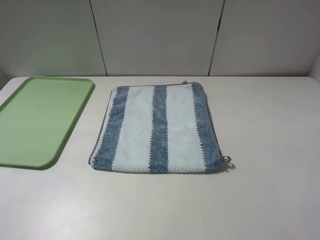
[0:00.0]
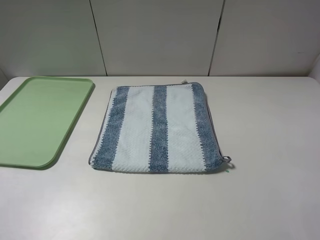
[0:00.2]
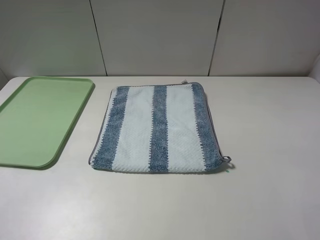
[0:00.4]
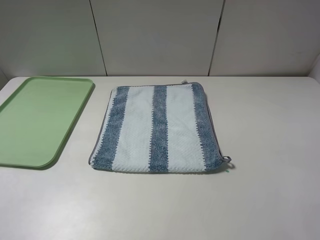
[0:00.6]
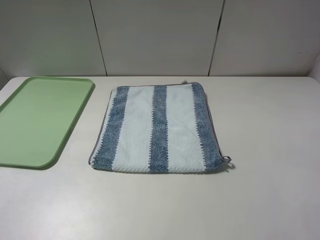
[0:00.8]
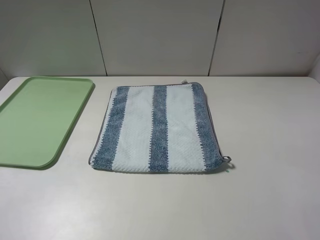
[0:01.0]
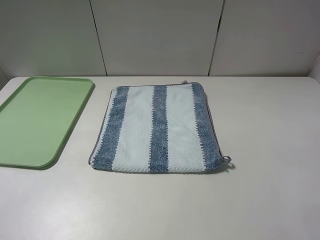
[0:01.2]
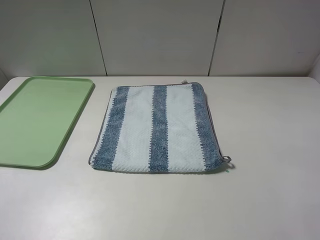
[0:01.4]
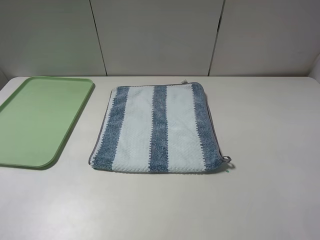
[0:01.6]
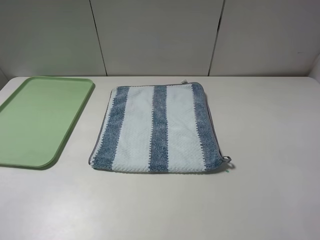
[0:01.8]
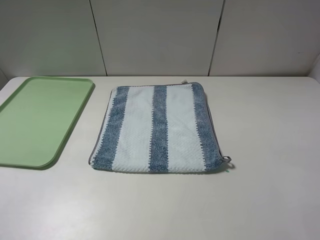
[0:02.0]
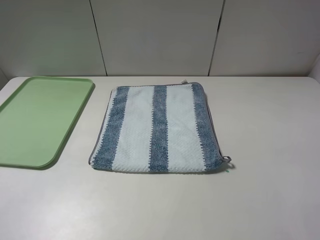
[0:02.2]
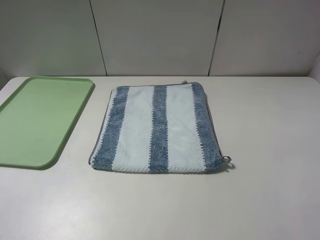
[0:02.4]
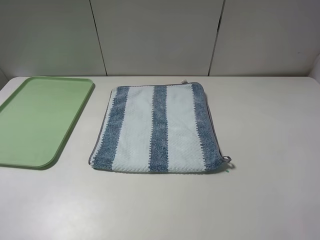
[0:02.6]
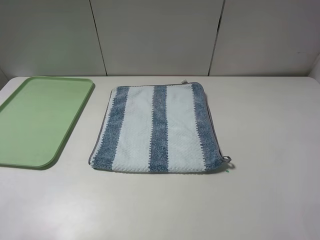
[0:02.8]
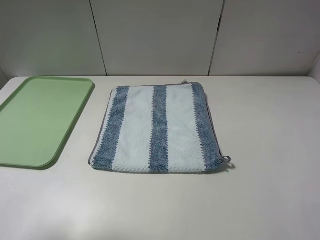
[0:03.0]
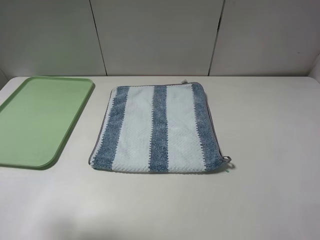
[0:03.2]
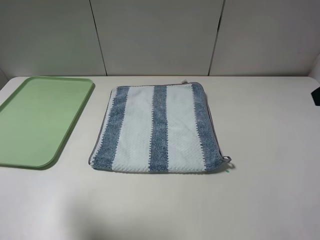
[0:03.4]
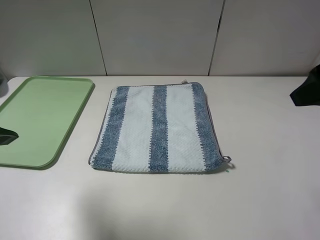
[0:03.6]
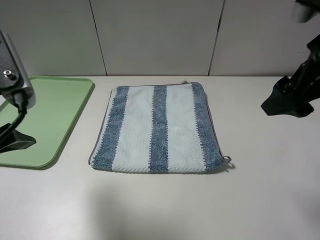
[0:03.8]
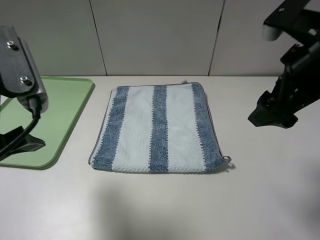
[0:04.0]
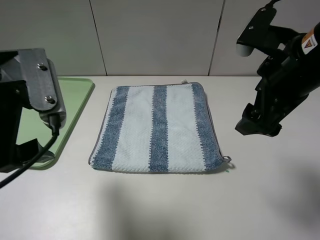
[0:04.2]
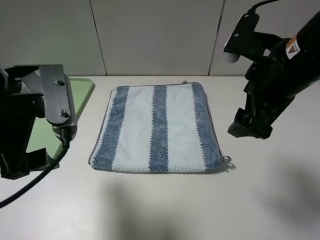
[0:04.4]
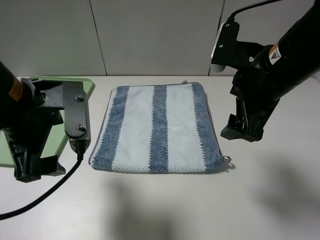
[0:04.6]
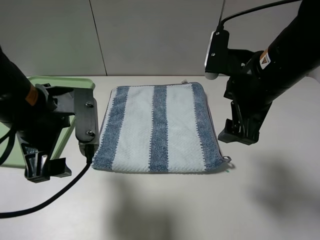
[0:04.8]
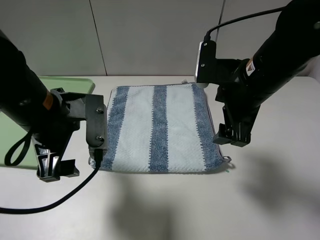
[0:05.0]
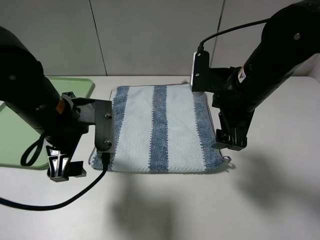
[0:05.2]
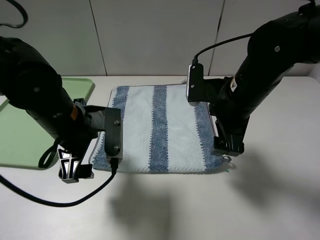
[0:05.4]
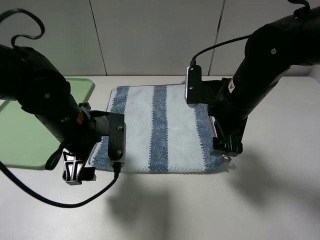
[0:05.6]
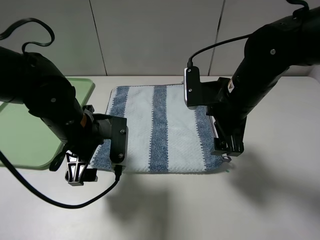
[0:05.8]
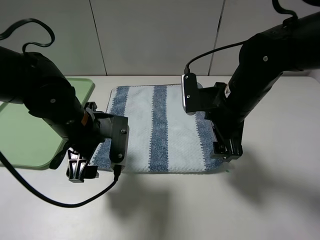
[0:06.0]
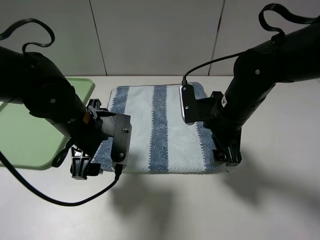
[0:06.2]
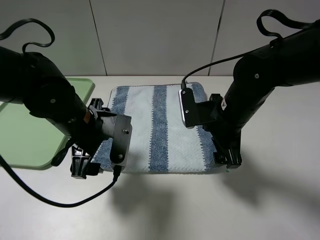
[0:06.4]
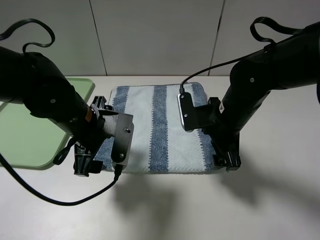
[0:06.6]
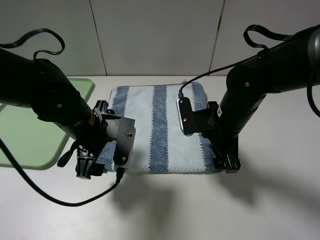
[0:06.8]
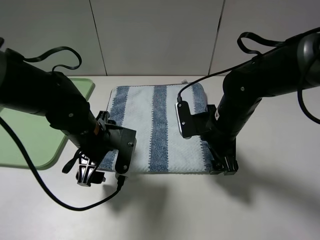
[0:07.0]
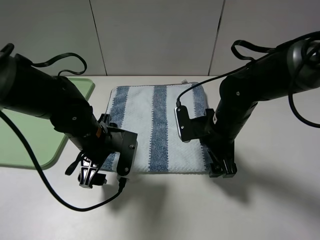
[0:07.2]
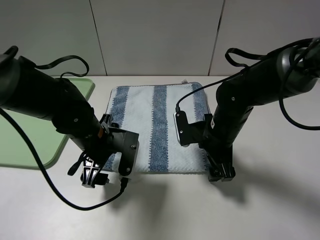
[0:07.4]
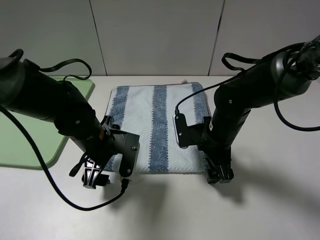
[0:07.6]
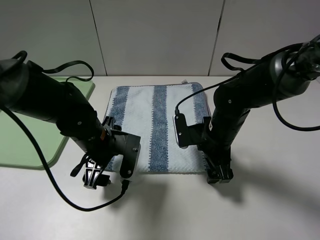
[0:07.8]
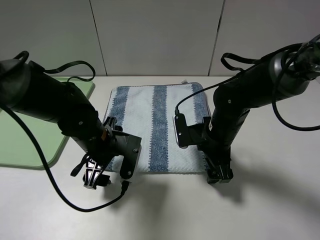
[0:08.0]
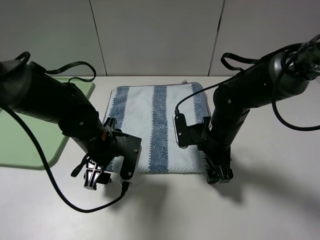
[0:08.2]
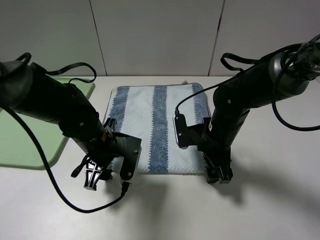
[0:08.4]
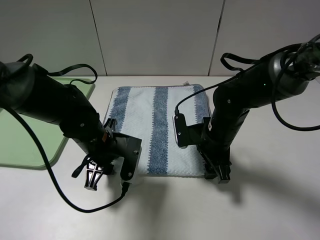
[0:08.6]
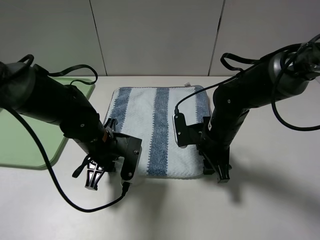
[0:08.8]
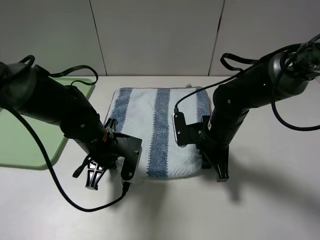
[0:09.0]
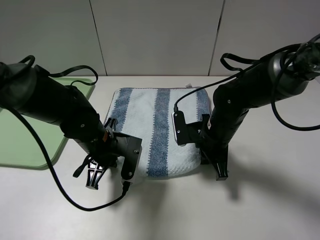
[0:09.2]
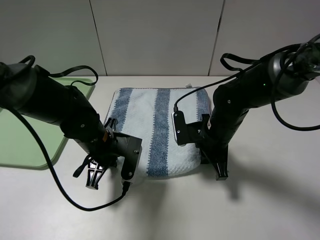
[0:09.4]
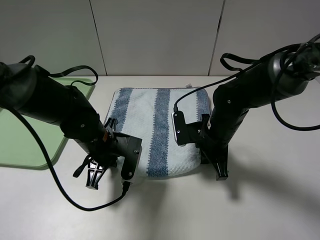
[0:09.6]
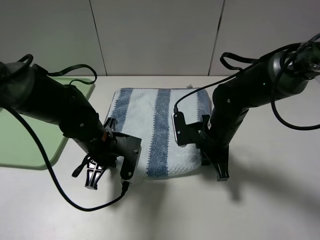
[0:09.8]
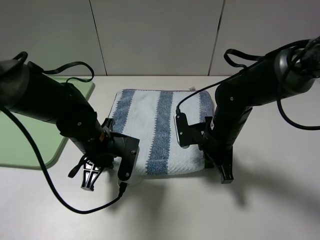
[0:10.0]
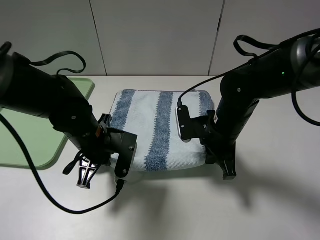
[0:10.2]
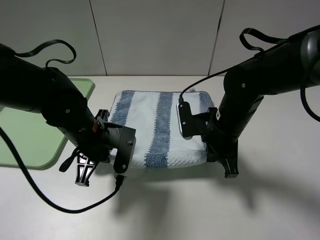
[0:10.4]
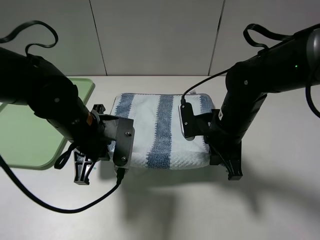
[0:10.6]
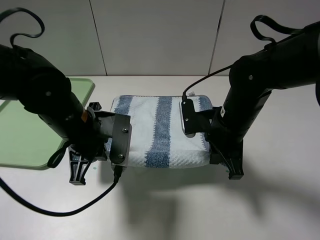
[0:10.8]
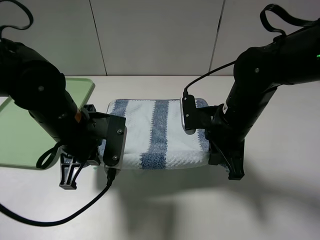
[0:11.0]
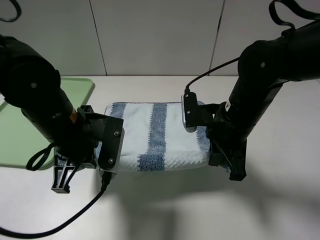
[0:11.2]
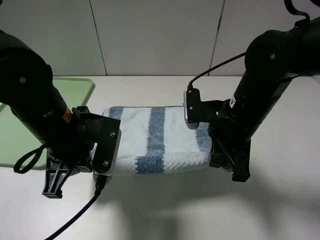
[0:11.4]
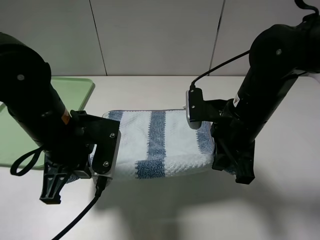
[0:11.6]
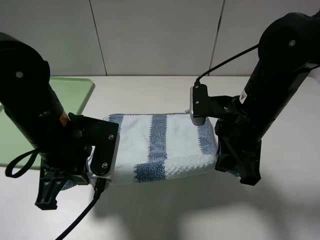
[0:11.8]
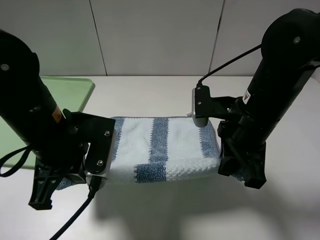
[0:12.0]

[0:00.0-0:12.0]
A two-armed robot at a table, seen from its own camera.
Step, 0:00.0 to 0:09.6: Grasp the blue white towel with the left gripper.
0:00.0 to 0:01.6: Neither gripper changes place.
0:01.6 to 0:03.0: The left gripper travels forward and upward by roughly 10 cm.
0:03.0 to 0:04.4: The left gripper heads to the right, downward and forward, covering approximately 15 cm. Meanwhile the right gripper moves to the left, forward and downward, roughly 20 cm.
0:04.4 to 0:06.0: The left gripper goes some 15 cm downward, forward and to the right, while the right gripper goes approximately 10 cm downward.
0:06.0 to 0:07.6: The left gripper heads downward, covering some 5 cm, while the right gripper is displaced downward by roughly 10 cm.
0:07.6 to 0:09.0: The right gripper closes its fingers, while the left gripper closes up.
0:10.4 to 0:12.0: The right gripper travels upward by about 5 cm, while the left gripper moves upward and backward, roughly 10 cm.

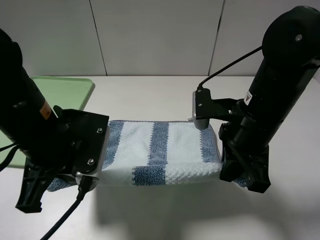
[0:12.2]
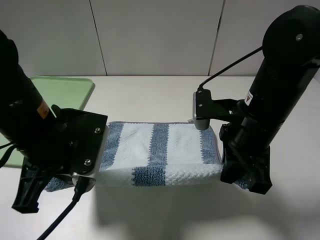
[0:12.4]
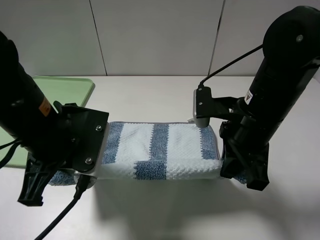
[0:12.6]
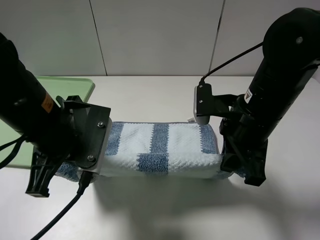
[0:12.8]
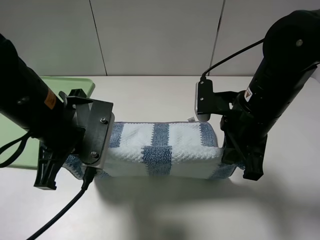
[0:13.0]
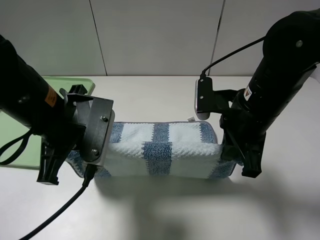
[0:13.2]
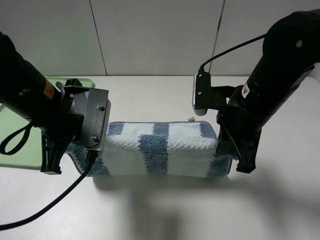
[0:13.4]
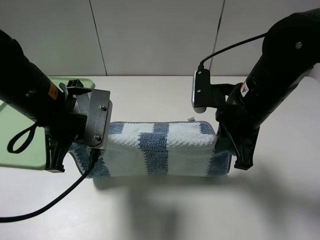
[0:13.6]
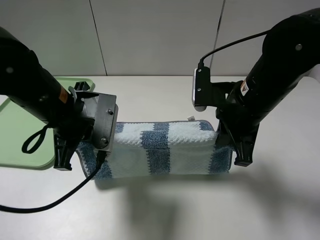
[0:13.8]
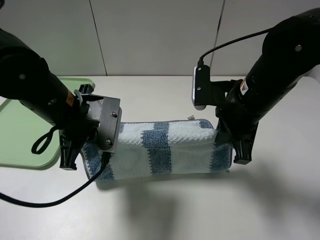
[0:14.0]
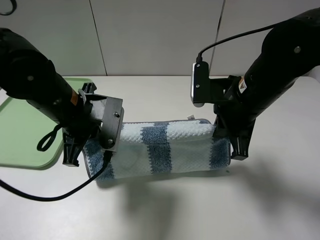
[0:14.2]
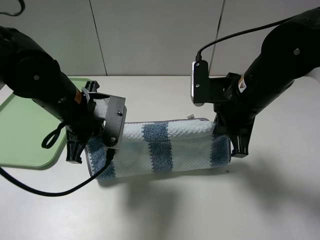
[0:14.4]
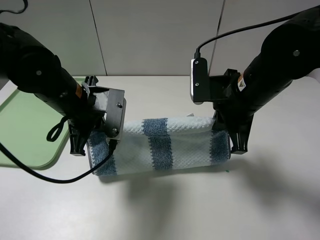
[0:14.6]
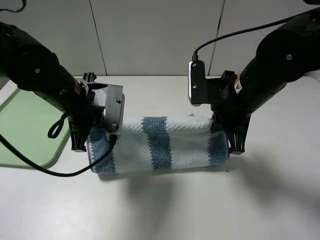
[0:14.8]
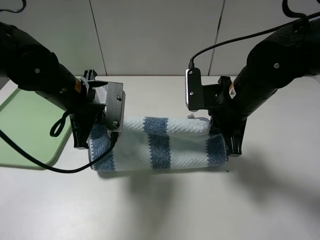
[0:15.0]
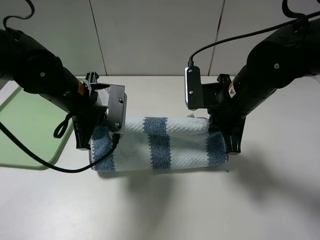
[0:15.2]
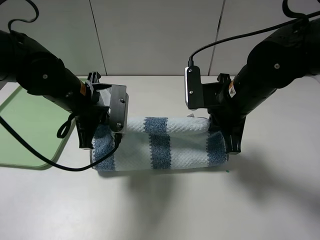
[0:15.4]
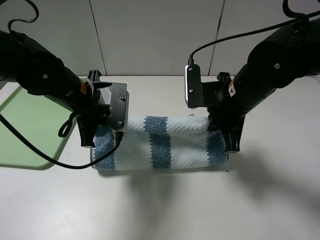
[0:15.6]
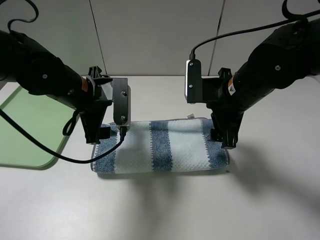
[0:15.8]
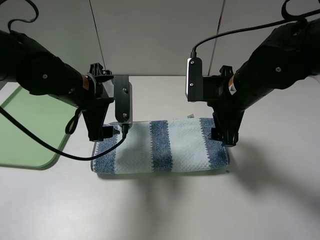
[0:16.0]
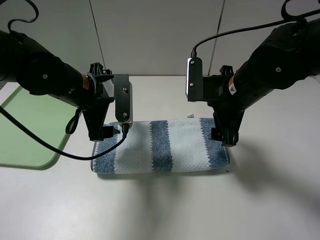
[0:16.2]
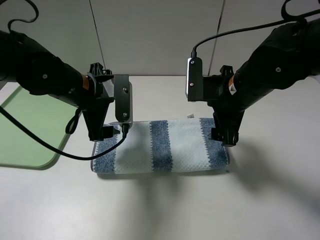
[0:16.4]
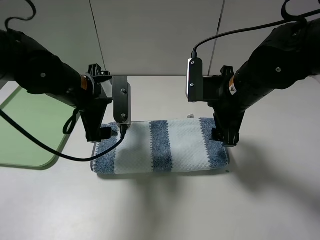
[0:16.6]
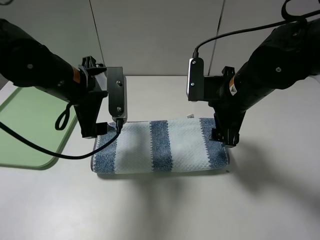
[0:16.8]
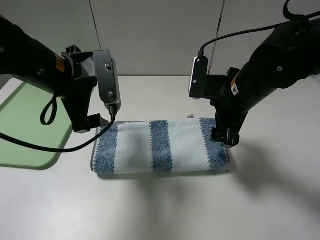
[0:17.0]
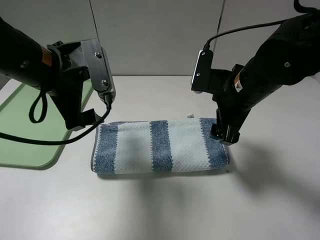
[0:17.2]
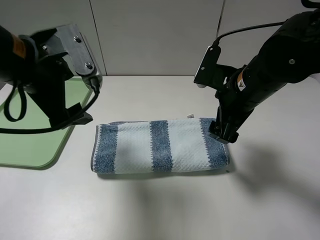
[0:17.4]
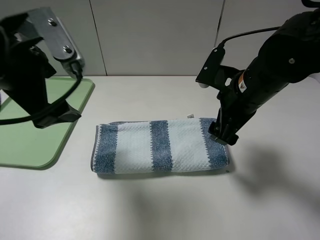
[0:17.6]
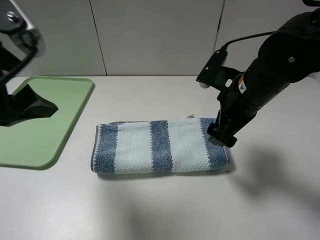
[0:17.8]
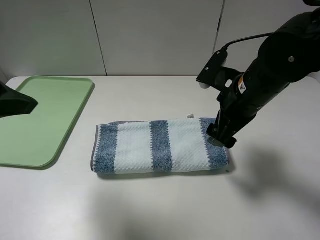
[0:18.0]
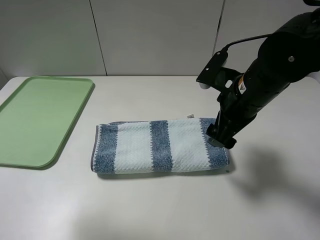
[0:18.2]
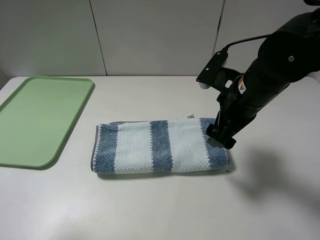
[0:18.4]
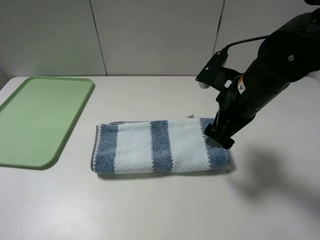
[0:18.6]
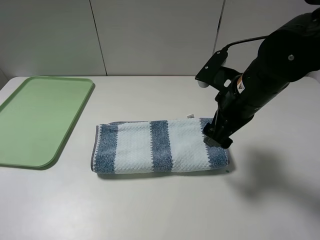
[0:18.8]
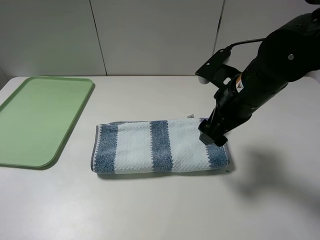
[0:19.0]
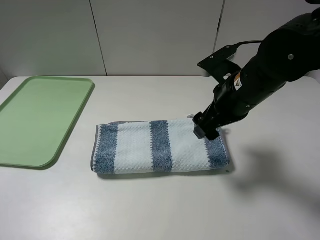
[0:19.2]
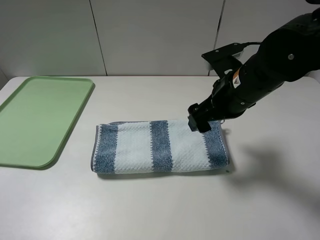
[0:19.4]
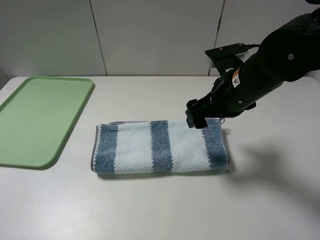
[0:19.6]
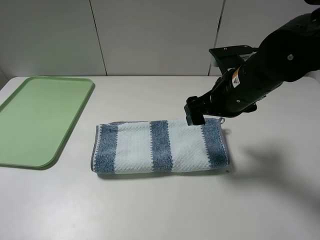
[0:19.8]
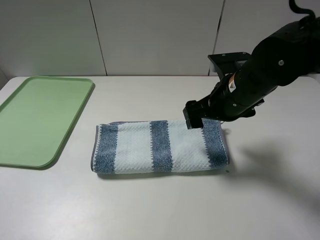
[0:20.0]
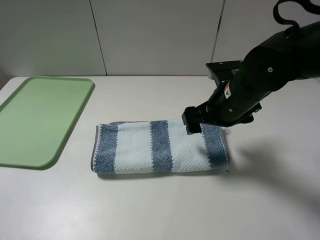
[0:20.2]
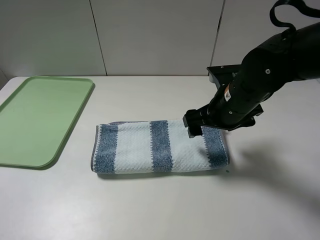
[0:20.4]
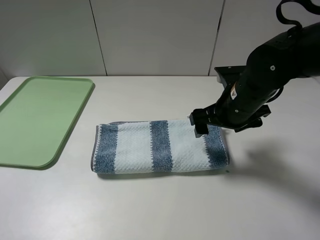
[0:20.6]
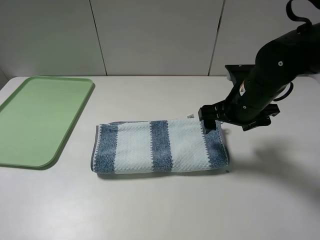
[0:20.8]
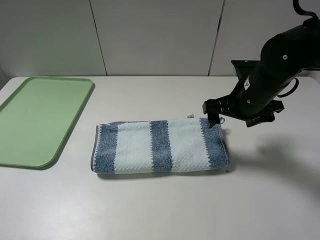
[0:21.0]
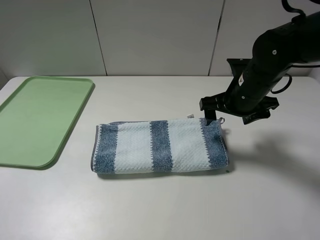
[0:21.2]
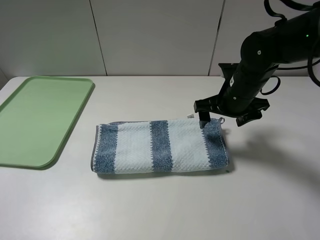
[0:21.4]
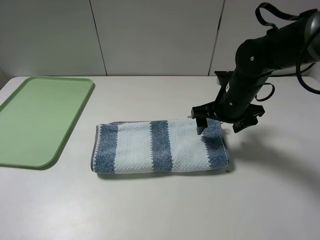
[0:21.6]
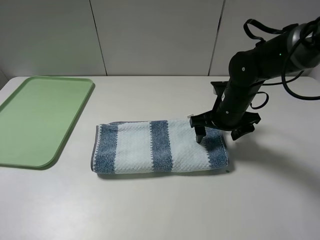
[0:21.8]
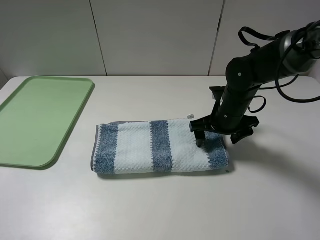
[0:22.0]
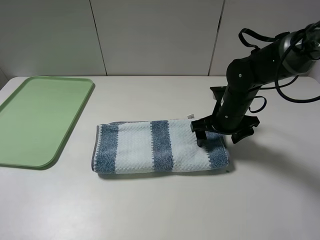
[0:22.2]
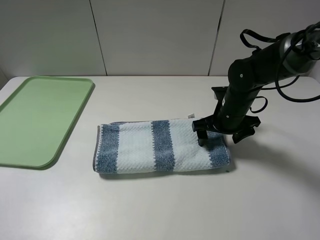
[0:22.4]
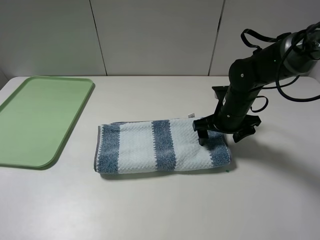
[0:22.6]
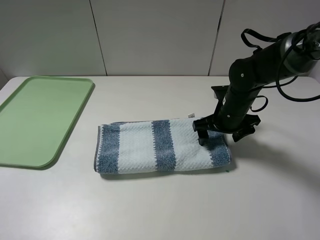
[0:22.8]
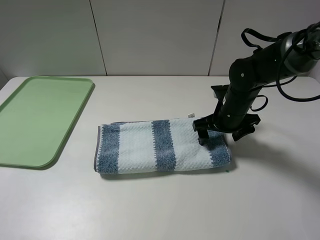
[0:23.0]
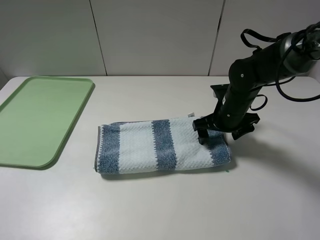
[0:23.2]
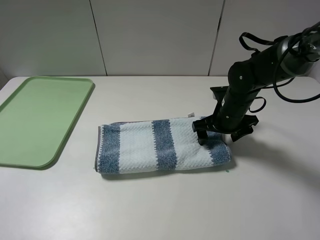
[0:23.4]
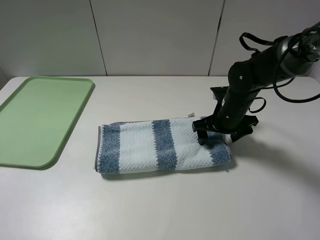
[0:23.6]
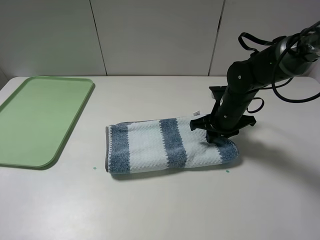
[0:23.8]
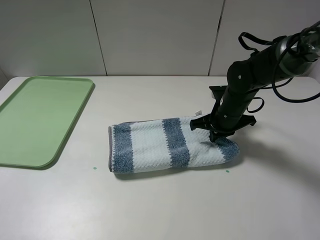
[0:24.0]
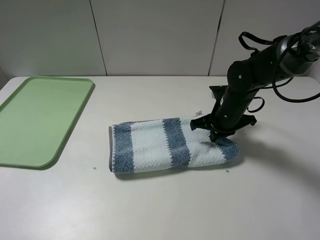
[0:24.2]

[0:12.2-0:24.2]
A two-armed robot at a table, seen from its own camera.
Step, 0:12.2 to 0:16.4: Fold the blue white towel upwards with the left gripper.
0:12.2 to 0:13.8: The left gripper goes some 5 cm forward.
0:15.2 to 0:16.6: The left gripper opens up. Meanwhile the right gripper opens.
0:16.6 to 0:18.2: The left gripper heads backward, upward and to the left, covering some 30 cm.
0:18.2 to 0:19.8: The left gripper goes about 15 cm backward, downward and to the left.
0:19.8 to 0:21.2: The right gripper shifts by approximately 5 cm.
0:21.2 to 0:22.6: The right gripper shifts roughly 5 cm downward.
0:22.6 to 0:24.2: The right gripper closes its fingers.
